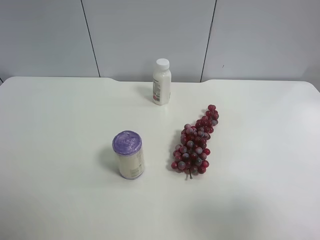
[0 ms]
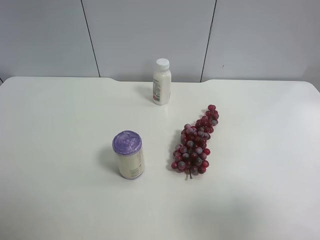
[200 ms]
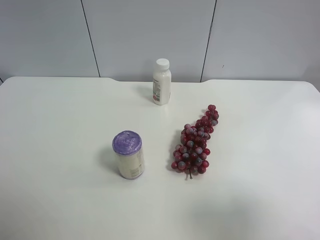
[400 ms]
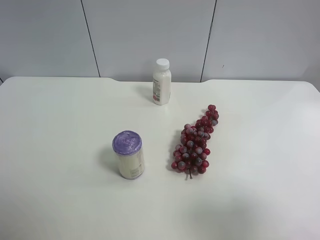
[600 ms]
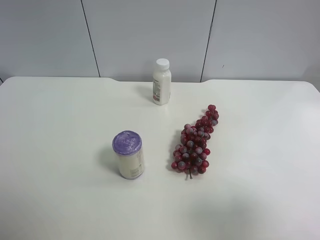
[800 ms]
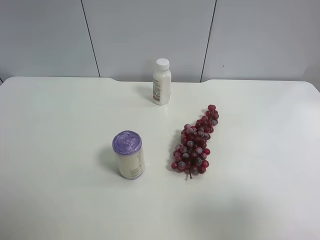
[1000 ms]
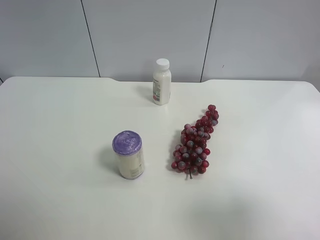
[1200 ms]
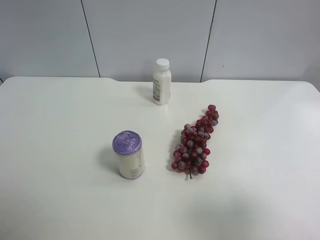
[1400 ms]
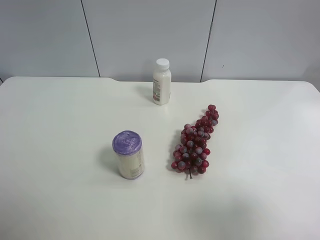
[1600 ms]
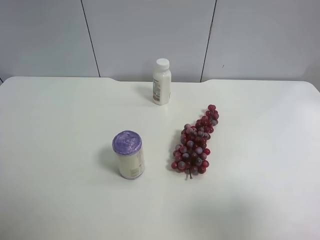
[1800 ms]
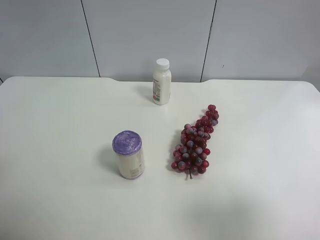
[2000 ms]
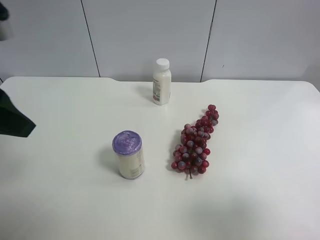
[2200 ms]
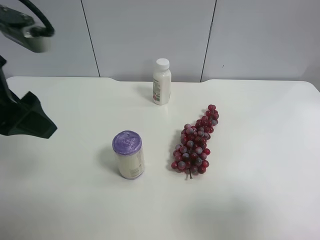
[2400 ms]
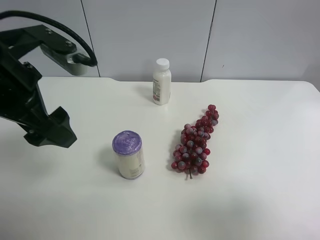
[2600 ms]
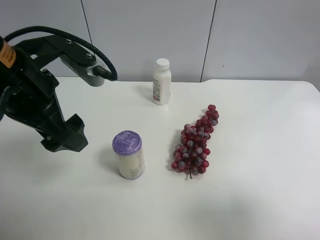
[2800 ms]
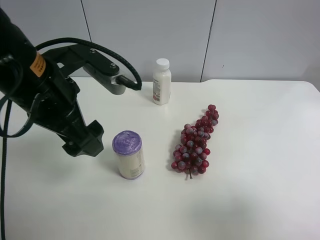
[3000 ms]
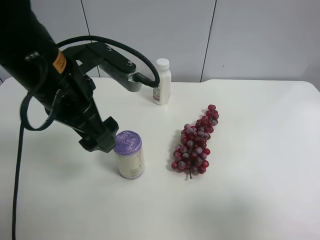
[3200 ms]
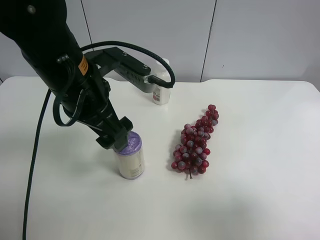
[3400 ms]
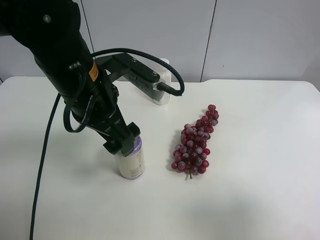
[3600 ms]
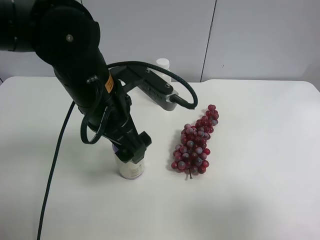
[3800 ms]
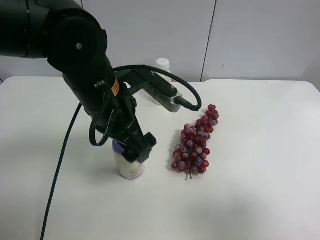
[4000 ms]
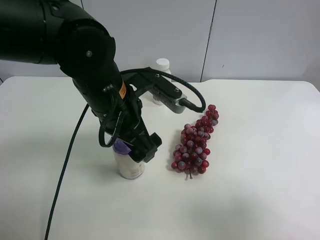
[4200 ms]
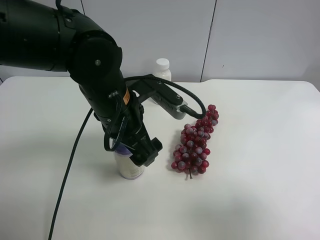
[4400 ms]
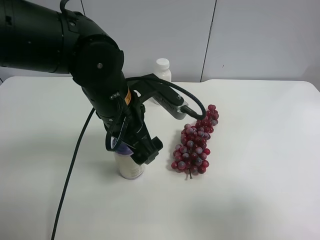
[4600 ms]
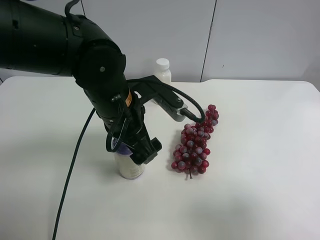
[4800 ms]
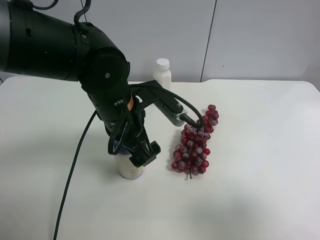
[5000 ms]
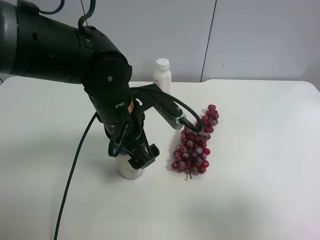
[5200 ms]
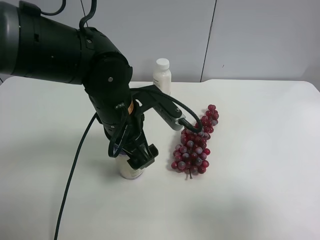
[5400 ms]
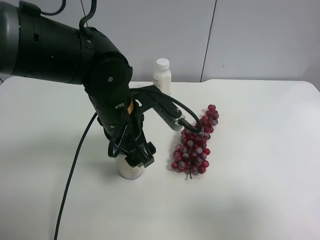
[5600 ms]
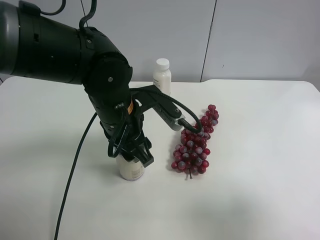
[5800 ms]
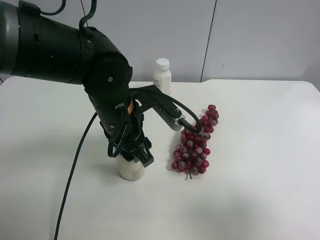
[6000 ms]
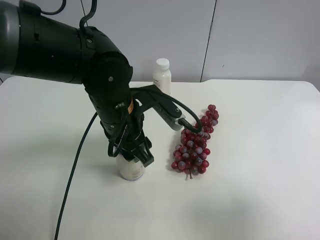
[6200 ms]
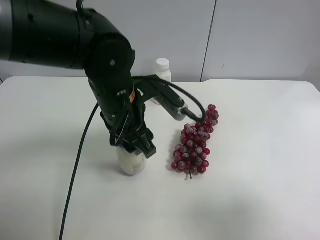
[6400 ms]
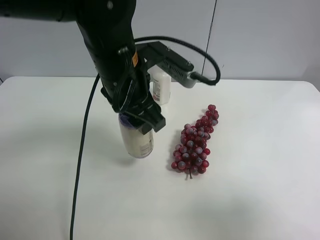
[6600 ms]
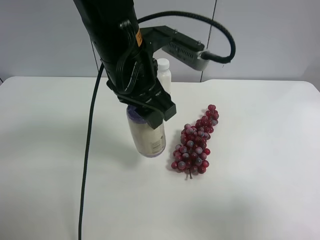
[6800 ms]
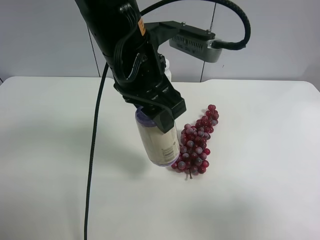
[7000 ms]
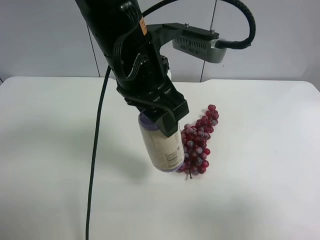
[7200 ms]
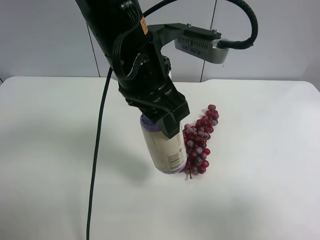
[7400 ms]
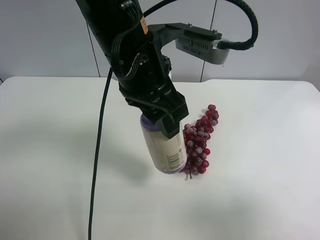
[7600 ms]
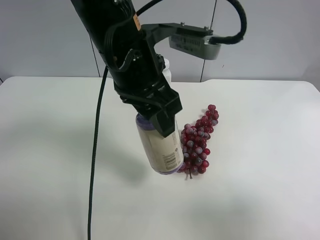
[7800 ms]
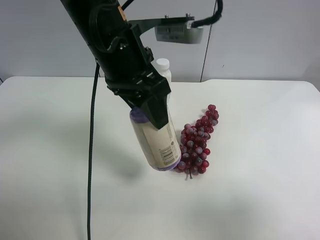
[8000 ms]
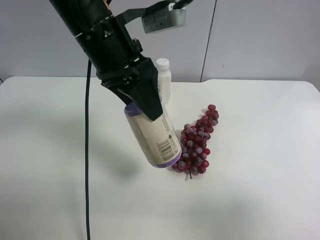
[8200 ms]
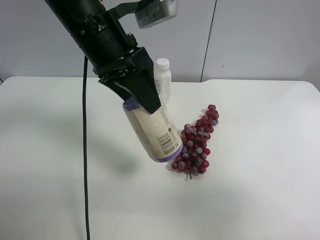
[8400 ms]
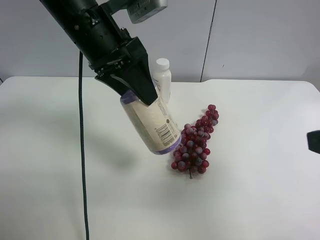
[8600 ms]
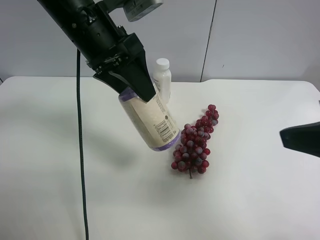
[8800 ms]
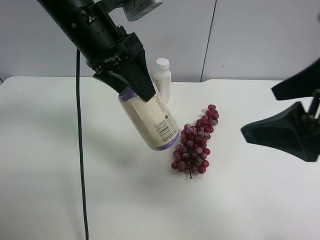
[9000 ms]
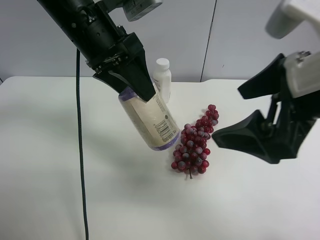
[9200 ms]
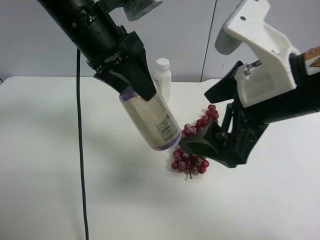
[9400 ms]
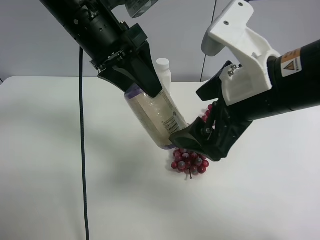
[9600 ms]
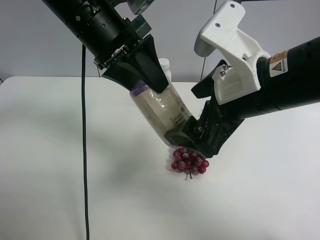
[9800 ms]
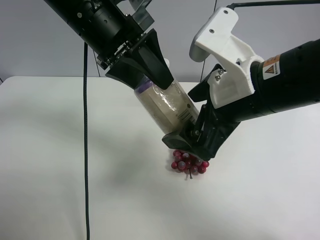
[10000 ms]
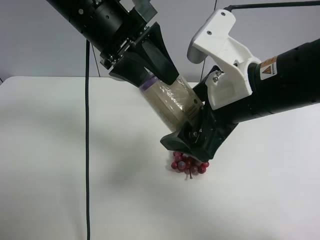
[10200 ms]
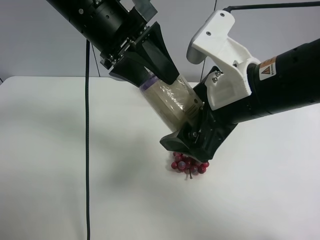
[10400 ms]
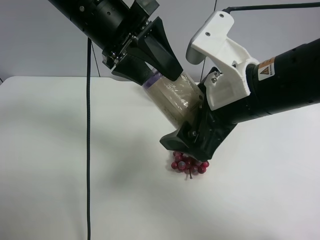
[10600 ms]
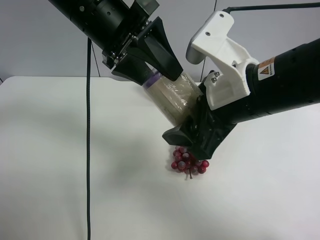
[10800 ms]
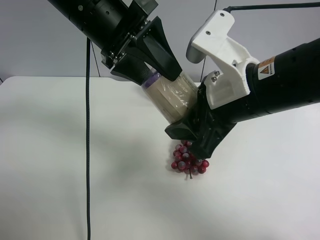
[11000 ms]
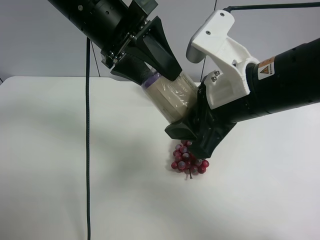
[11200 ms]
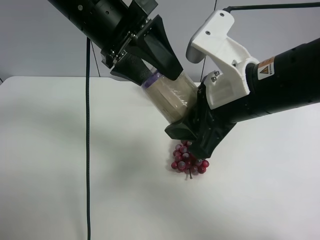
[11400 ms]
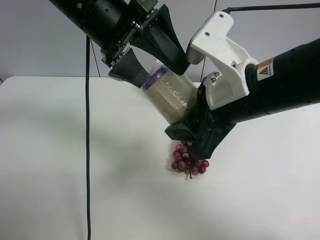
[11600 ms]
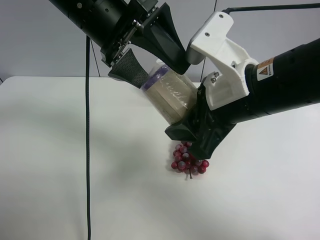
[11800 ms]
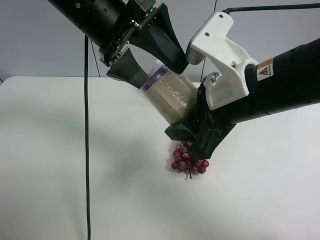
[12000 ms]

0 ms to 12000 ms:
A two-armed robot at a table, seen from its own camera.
Task of the whole recording: use the left gripper to pick up the item and transfer it from the left gripper to the right gripper.
1600 ms to 3000 ms: The left gripper goes roughly 25 cm to the right, forward and downward.
3000 ms to 4400 ms: The left gripper moves to the right and downward, some 10 cm.
4400 ms to 6000 ms: The left gripper closes up.
6000 ms to 7600 ms: The left gripper shifts roughly 10 cm upward.
7600 ms to 9000 ms: The right gripper is displaced forward and to the left by about 15 cm, while the left gripper heads to the left and forward, covering some 10 cm.
9000 ms to 10400 ms: The right gripper heads to the left and downward, covering some 10 cm.
10400 ms to 12000 ms: The left gripper opens, while the right gripper closes its fingers.

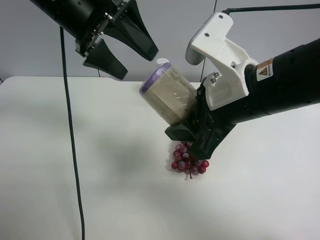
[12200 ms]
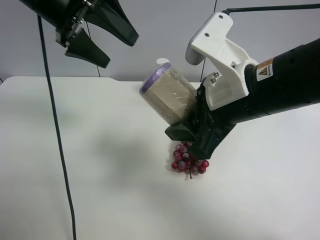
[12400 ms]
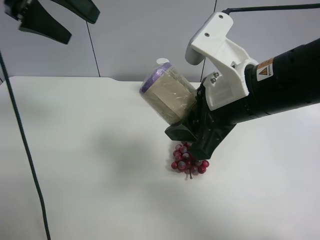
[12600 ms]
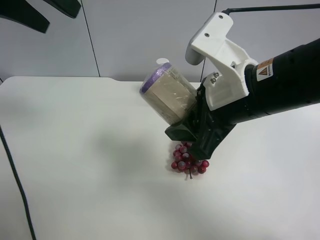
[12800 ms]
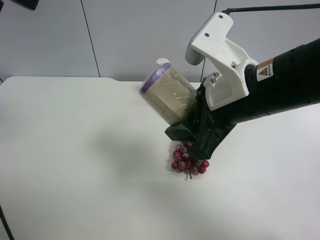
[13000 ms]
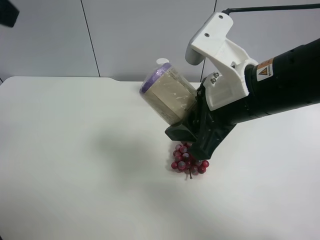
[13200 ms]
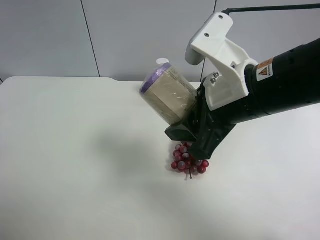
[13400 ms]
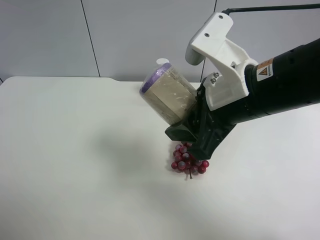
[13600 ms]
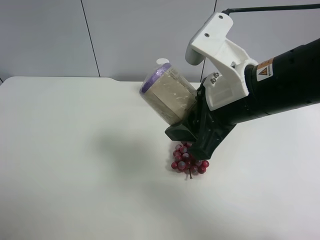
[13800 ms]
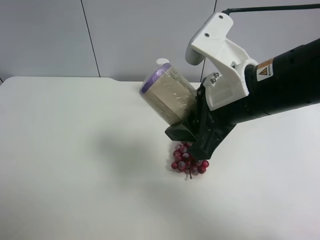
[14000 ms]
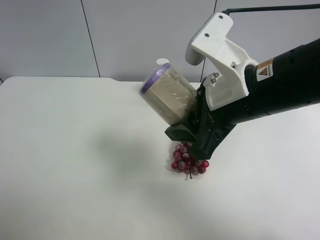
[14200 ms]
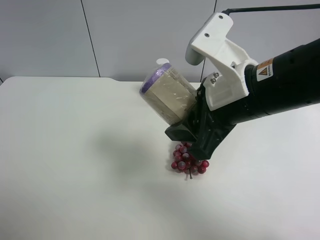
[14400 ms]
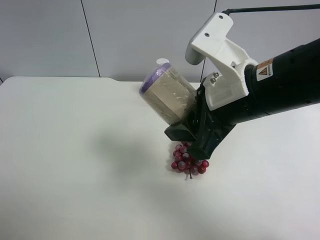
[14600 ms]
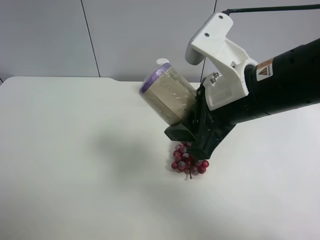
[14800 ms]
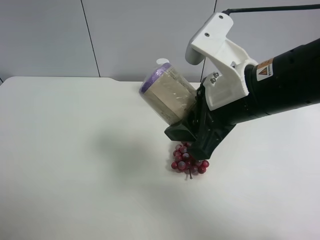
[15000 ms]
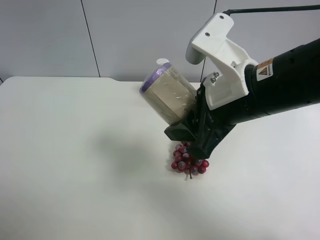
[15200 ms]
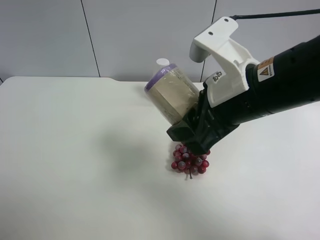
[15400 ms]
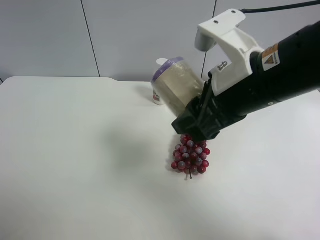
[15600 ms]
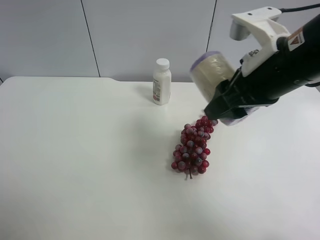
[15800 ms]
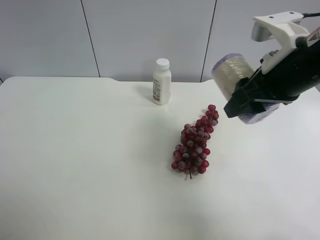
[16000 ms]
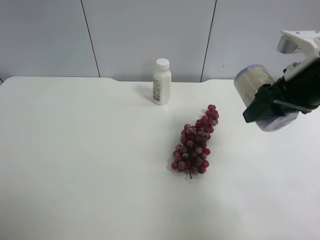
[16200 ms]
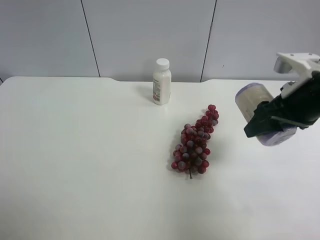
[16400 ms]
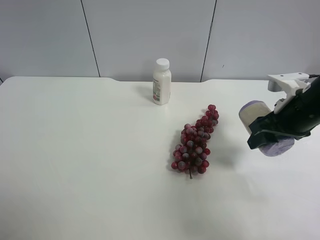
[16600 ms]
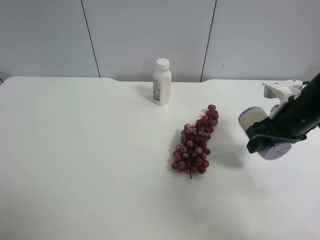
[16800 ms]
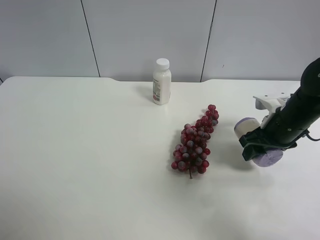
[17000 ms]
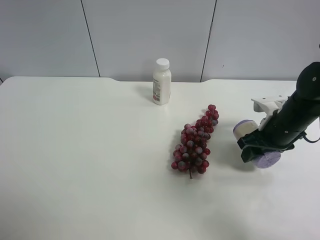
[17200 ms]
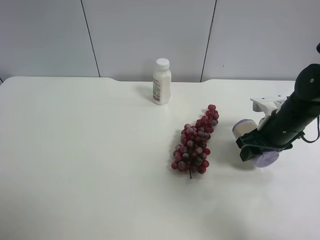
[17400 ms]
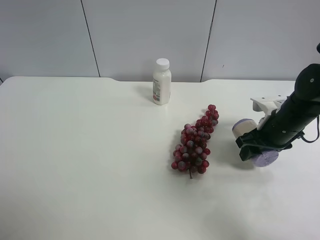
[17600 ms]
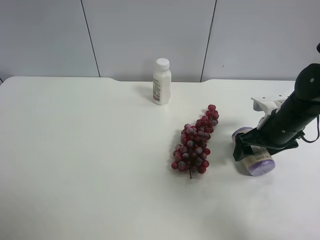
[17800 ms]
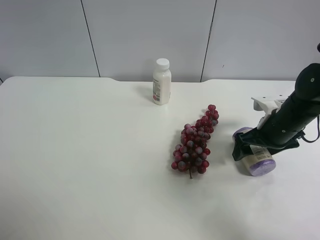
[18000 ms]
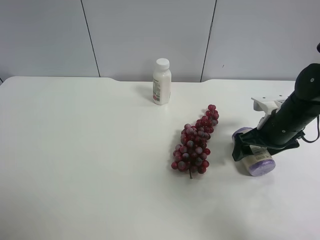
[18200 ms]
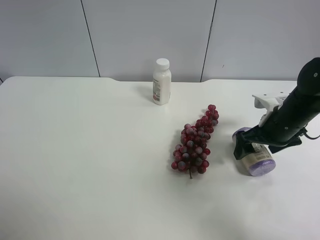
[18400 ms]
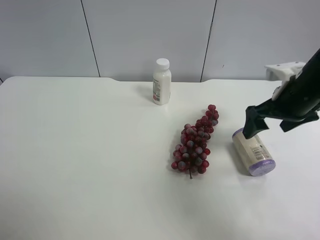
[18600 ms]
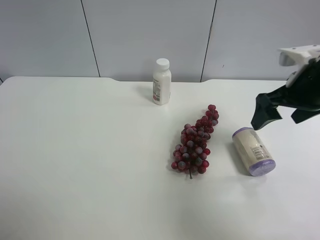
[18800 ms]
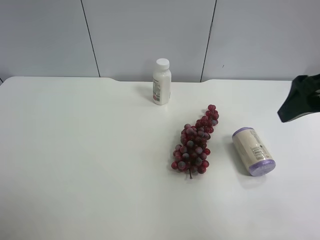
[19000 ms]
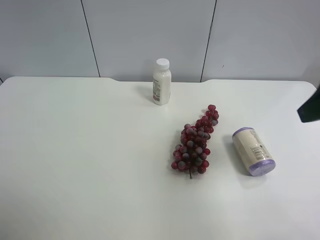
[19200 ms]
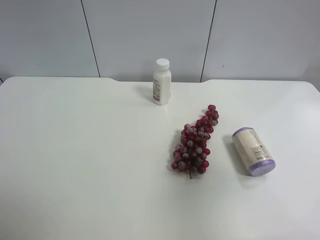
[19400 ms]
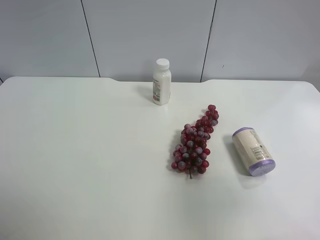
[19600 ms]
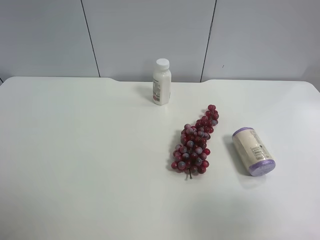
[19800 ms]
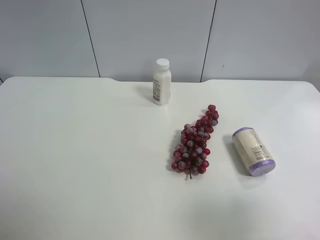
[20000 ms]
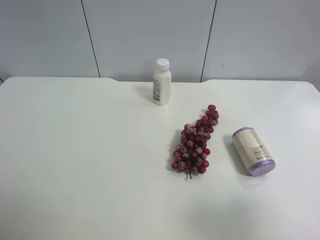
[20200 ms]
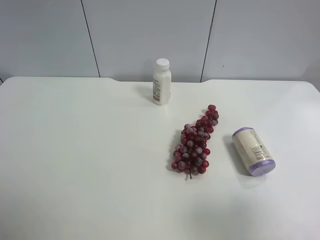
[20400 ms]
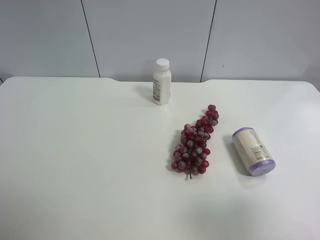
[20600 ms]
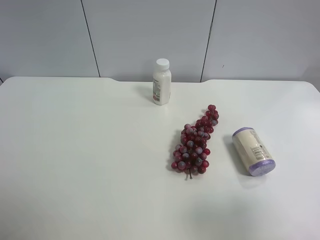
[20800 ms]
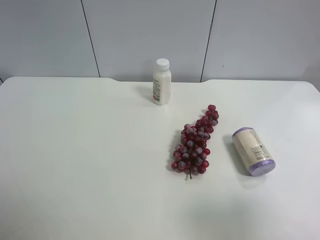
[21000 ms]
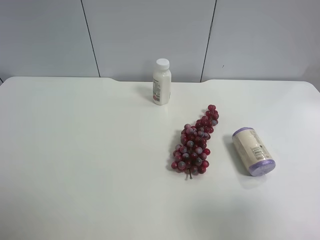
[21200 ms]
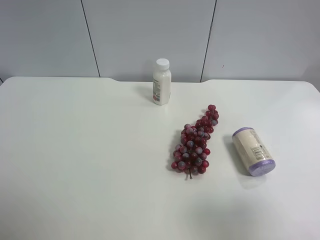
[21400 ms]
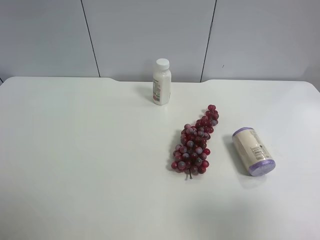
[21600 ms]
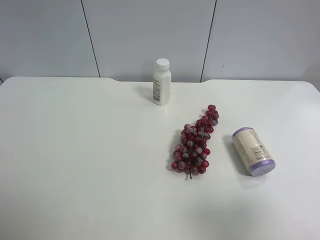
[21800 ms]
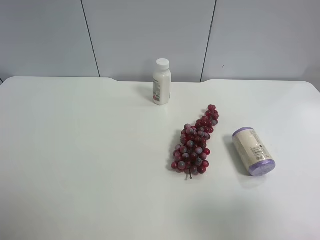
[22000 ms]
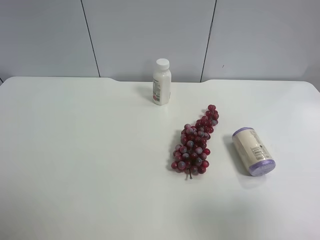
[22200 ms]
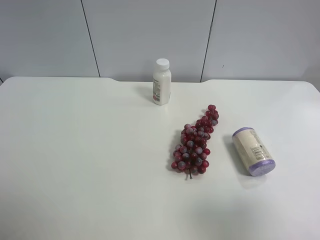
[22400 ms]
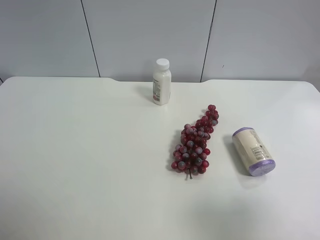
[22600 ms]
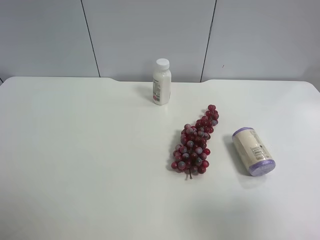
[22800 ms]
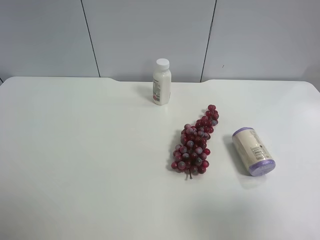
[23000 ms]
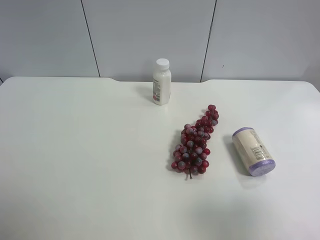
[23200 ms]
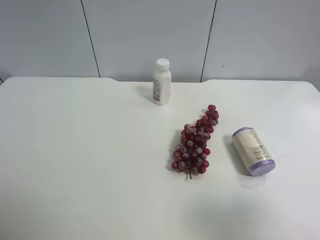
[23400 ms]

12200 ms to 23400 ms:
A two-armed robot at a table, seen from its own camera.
Task of the whole recording: use the left gripper to pick up the item and transfer it from the left gripper to the right gripper.
12200 ms to 13800 ms: The left gripper is displaced backward and to the left by some 30 cm.
13800 ms to 15400 ms: The left gripper is displaced downward by about 5 cm.
15400 ms to 17000 ms: The right gripper heads to the right, downward and forward, covering about 20 cm.
17000 ms to 18600 ms: The right gripper heads upward, covering about 10 cm, and opens its fingers.
18600 ms to 20200 ms: The right gripper moves backward, some 30 cm.
21800 ms to 23400 ms: Neither gripper changes place.
